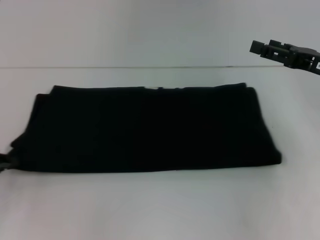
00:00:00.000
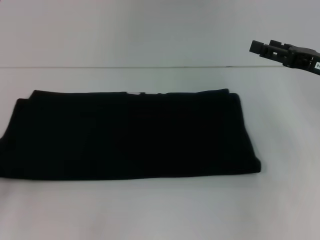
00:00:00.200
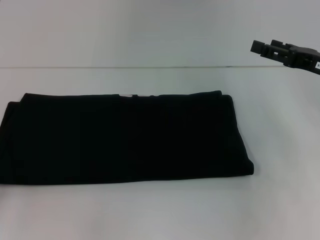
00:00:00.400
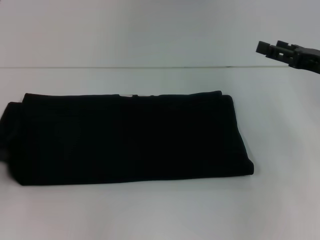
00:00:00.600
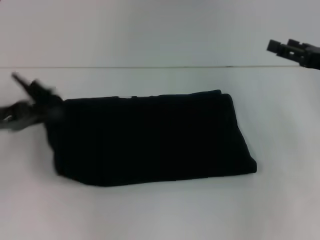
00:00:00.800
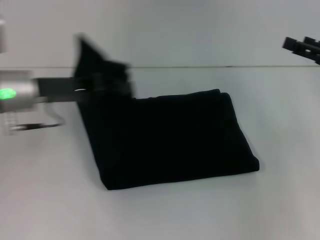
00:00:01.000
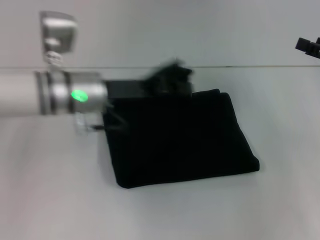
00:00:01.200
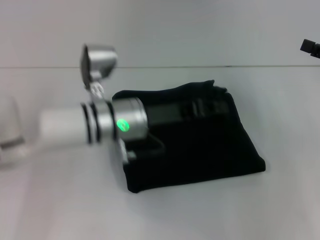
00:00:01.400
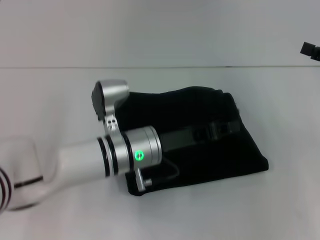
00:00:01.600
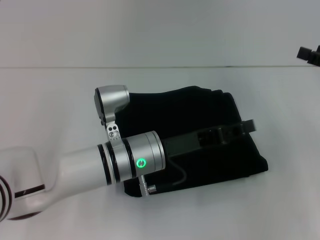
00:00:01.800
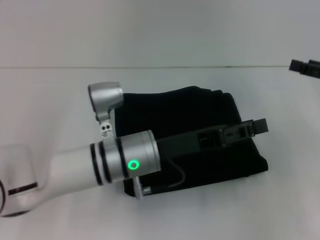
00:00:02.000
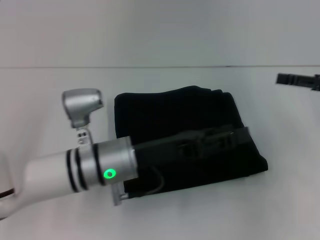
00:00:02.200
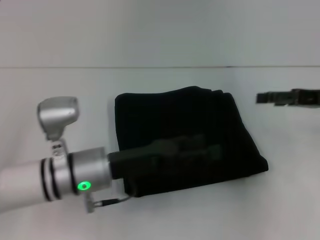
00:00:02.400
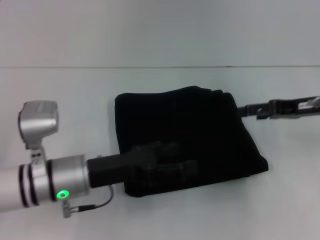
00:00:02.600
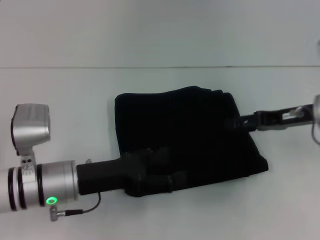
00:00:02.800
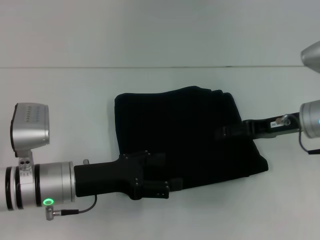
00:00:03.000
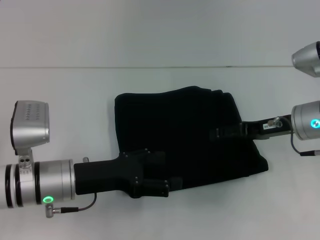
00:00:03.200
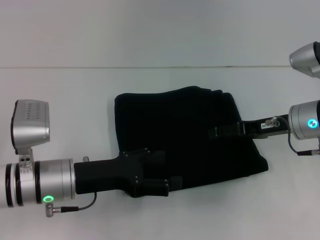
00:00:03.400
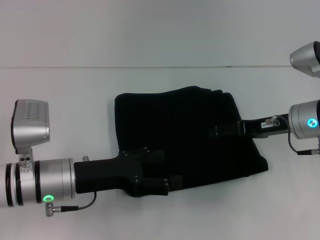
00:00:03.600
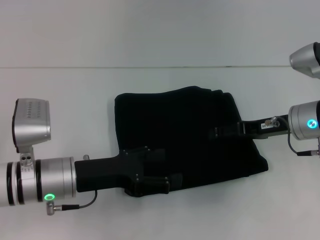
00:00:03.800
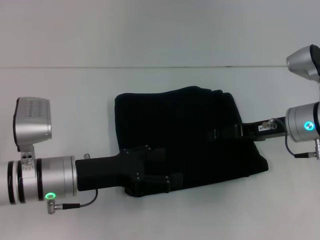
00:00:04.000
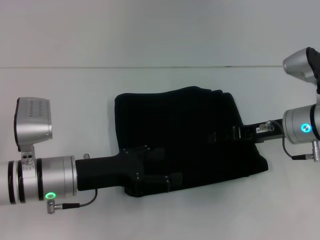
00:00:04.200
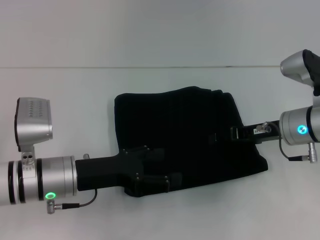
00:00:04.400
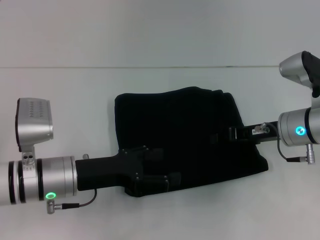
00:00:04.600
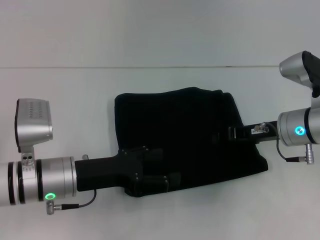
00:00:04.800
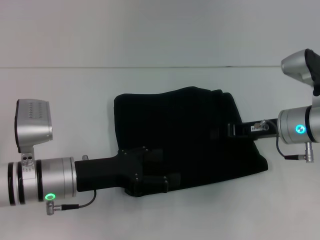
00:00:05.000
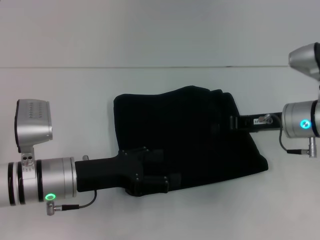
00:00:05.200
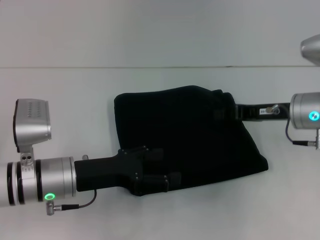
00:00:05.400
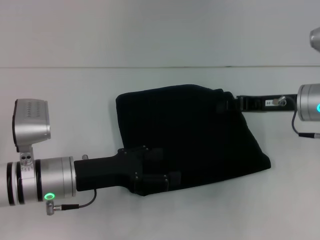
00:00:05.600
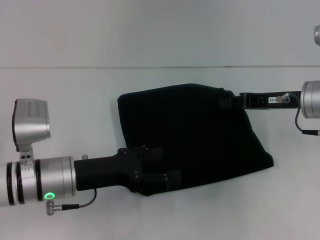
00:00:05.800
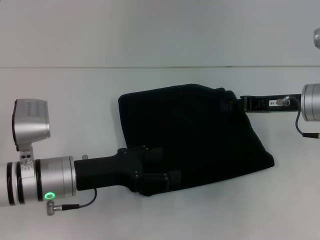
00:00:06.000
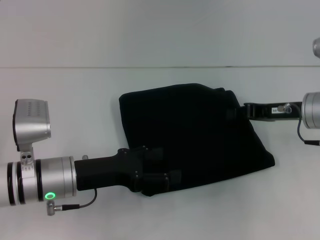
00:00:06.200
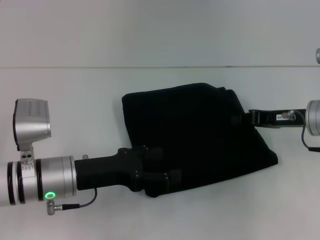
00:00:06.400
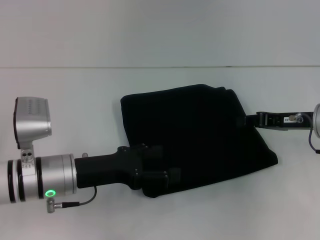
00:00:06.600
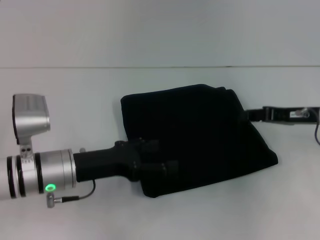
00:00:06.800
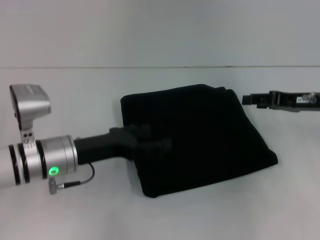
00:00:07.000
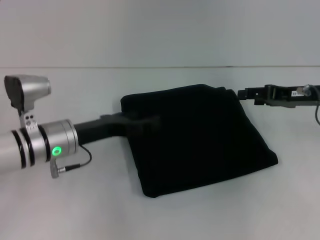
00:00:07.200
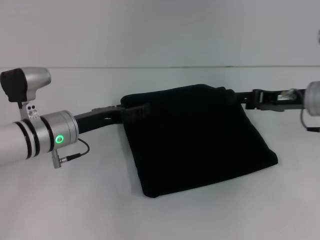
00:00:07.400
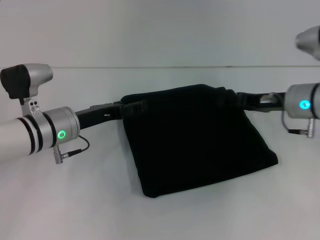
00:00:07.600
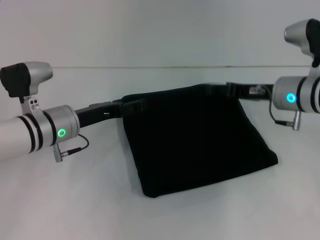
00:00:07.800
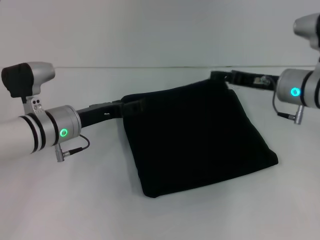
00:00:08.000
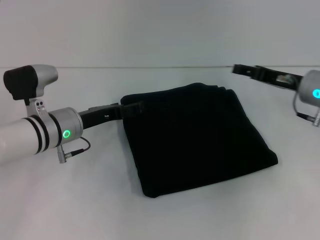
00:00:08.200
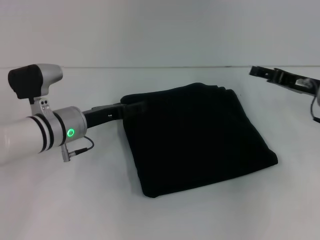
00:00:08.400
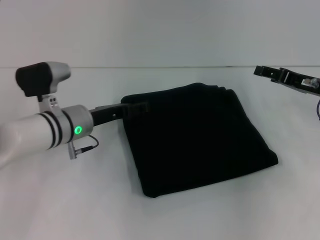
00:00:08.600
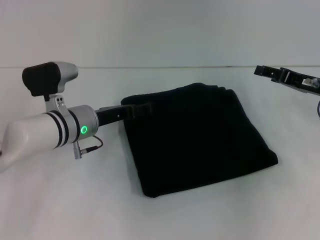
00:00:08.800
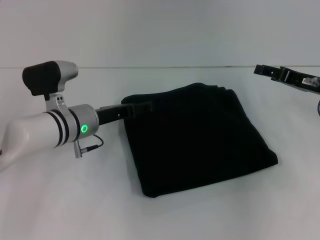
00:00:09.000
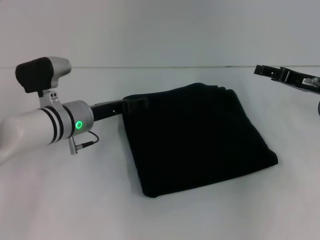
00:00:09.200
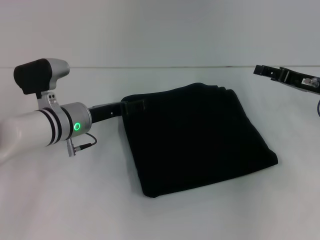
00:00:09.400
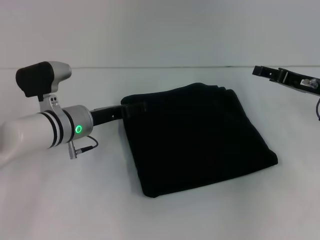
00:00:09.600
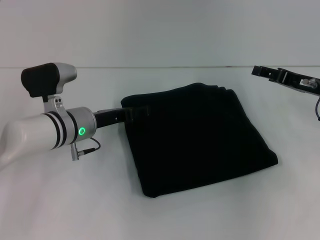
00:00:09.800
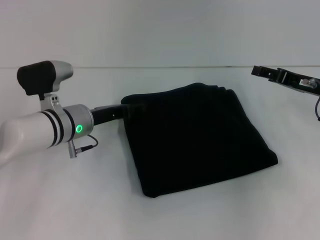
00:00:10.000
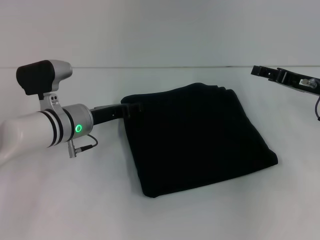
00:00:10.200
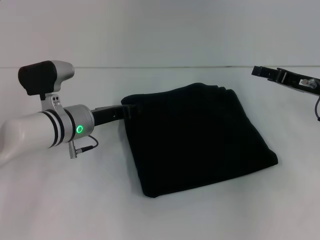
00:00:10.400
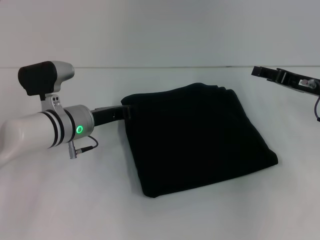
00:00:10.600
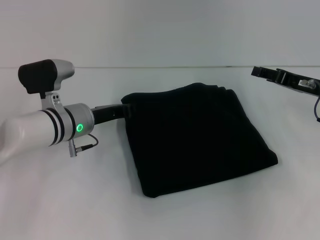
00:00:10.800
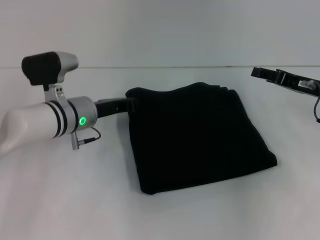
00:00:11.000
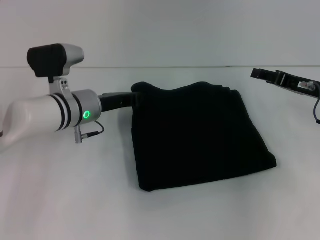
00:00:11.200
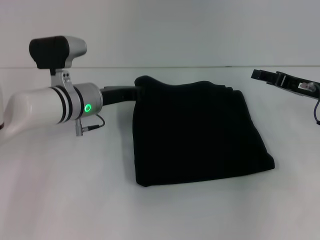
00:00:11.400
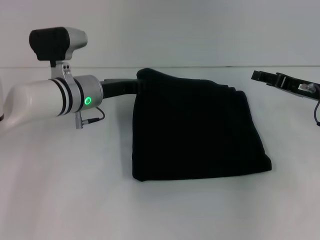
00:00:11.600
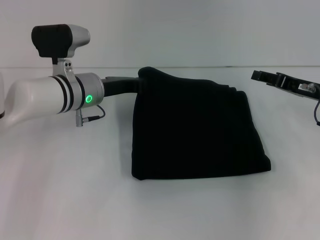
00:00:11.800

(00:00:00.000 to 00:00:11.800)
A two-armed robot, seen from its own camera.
Step, 00:00:00.000 - 00:00:02.000: Fold the clothes with your left hand.
00:00:00.000 - 00:00:01.400: The right gripper is displaced to the right by approximately 5 cm; the left gripper travels to the right by some 30 cm.
00:00:01.400 - 00:00:03.000: The left gripper is displaced to the left and backward by some 10 cm, and opens its fingers; the right gripper goes approximately 10 cm to the left.
00:00:03.000 - 00:00:04.400: The grippers move only a little.
00:00:04.400 - 00:00:06.000: The right gripper closes.
00:00:06.000 - 00:00:07.400: The right gripper opens up, while the left gripper heads forward, covering some 5 cm.
00:00:07.400 - 00:00:08.800: The grippers move only a little.
00:00:08.800 - 00:00:10.400: The left gripper closes its fingers.
00:00:10.400 - 00:00:11.800: The left gripper shifts by roughly 5 cm, and closes.

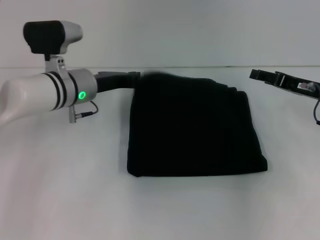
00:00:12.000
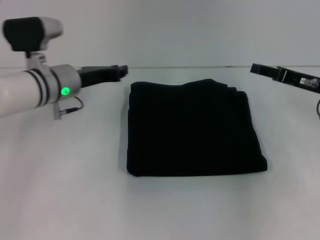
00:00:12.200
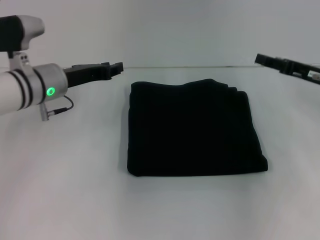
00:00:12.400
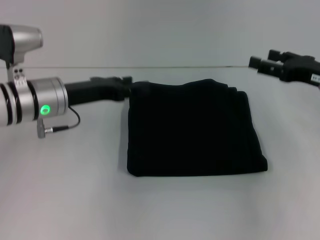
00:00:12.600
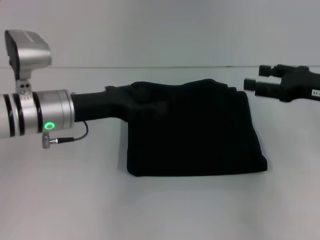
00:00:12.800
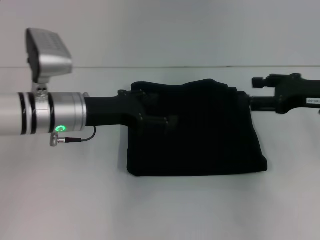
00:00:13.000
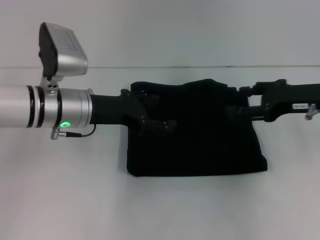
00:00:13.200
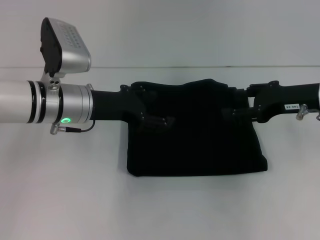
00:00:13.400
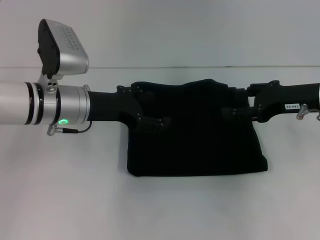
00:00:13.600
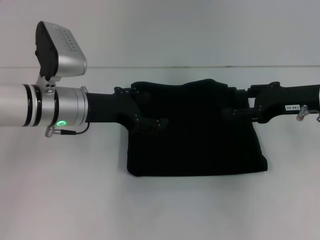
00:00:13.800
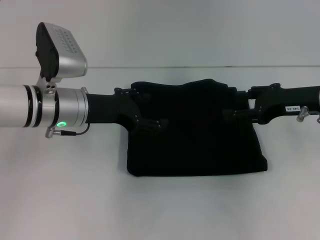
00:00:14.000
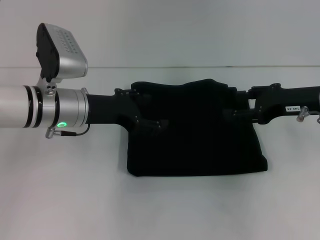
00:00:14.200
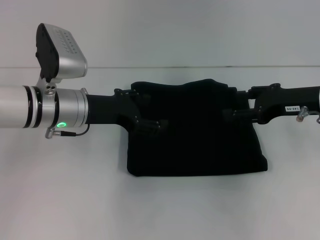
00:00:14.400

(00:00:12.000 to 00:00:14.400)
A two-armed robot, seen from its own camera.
00:00:12.000 - 00:00:13.200: The left gripper is displaced backward by about 5 cm, and opens up; the right gripper ends up some 5 cm from where it was.
00:00:13.200 - 00:00:14.400: Neither gripper changes place.
